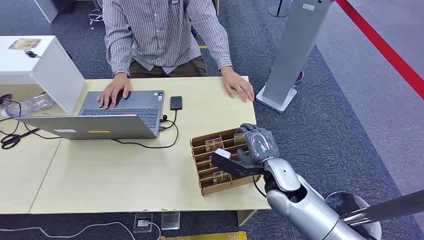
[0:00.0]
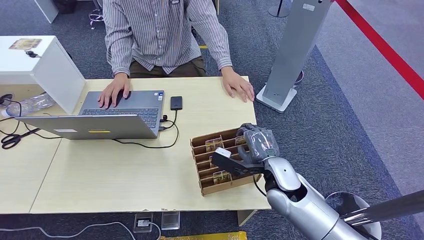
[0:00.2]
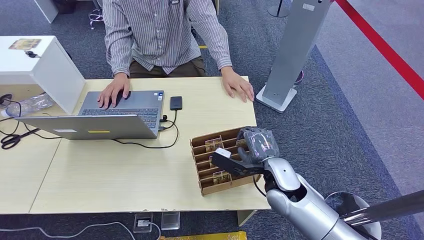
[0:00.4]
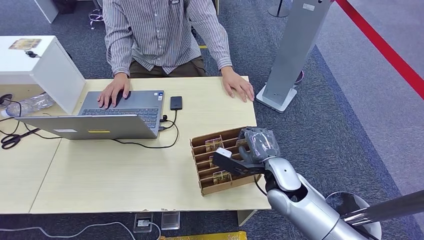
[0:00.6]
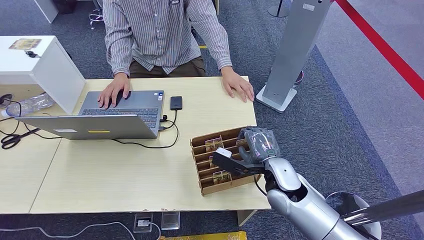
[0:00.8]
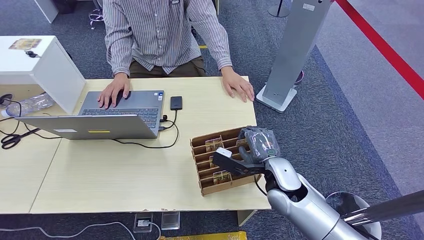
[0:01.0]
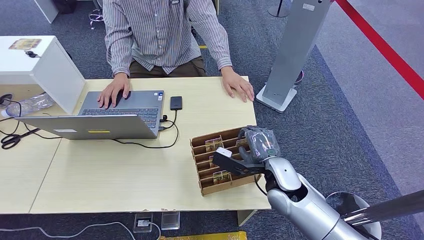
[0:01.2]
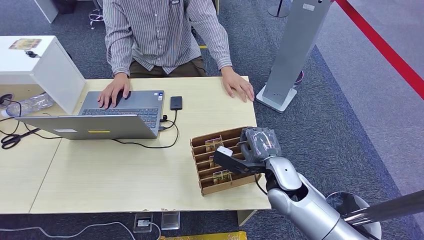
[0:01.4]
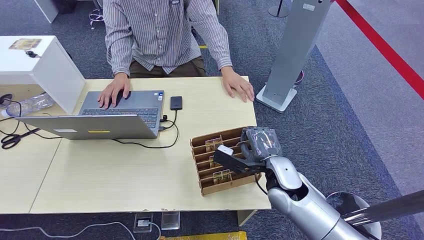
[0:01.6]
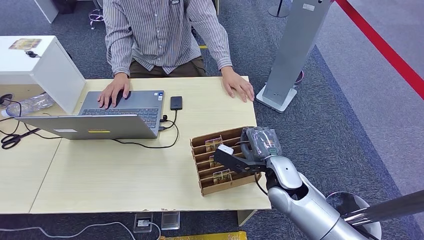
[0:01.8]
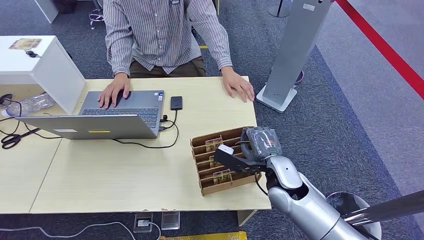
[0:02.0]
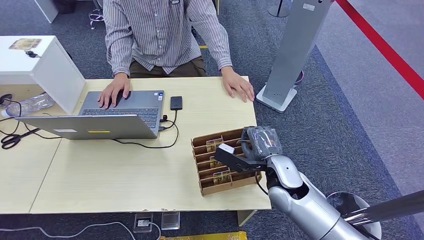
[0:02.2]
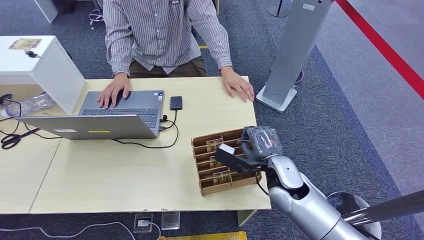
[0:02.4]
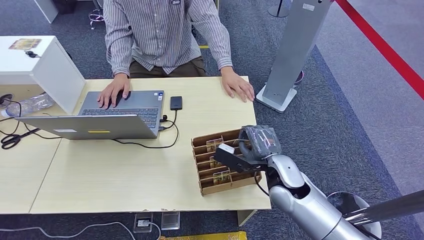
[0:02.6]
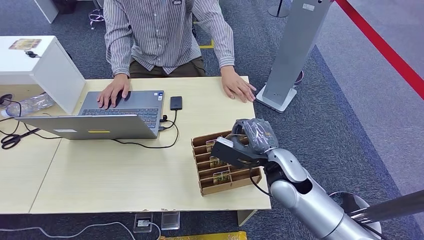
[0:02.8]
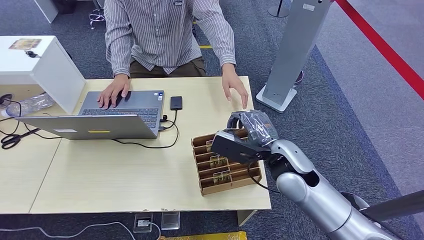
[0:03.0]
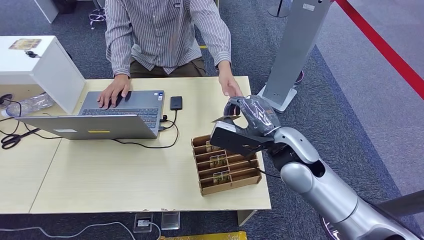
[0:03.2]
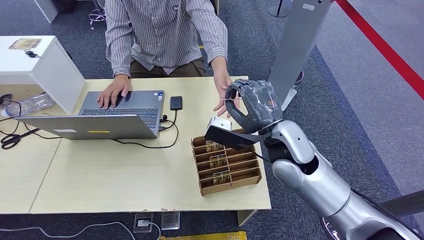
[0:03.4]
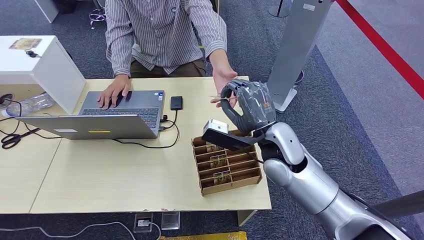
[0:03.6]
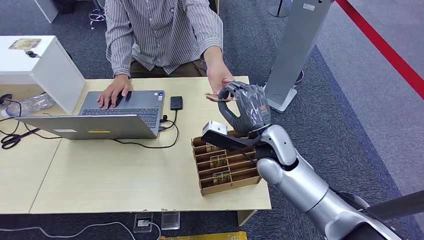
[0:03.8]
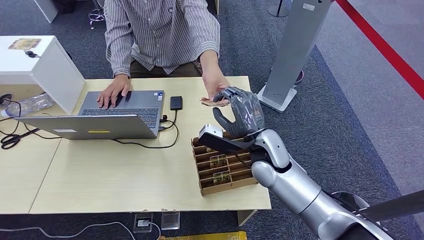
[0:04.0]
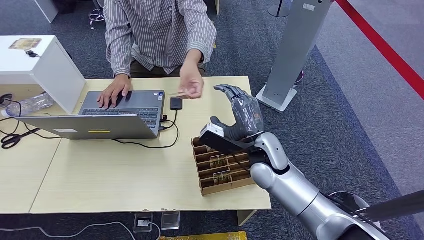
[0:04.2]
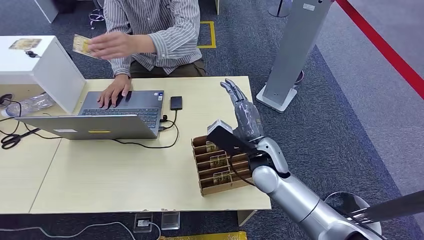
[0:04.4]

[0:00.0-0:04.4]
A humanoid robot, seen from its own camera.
Step, 0:00.0 to 0:02.8: Pick up the room card from the card holder.
Step, 0:03.4 to 0:04.2: Hand the room card to the target.
0:01.4 to 0:03.0: The right hand is displaced upward by about 5 cm.
0:03.0 to 0:04.4: The right hand changes place by some 5 cm.
